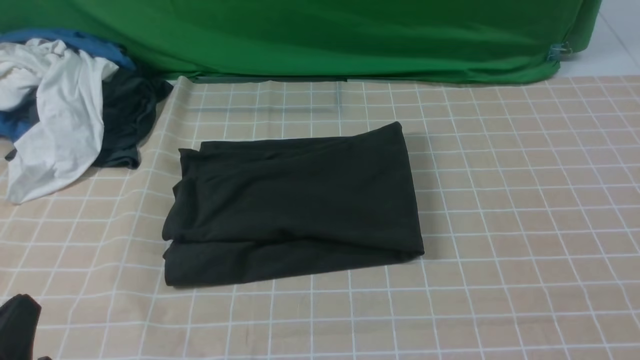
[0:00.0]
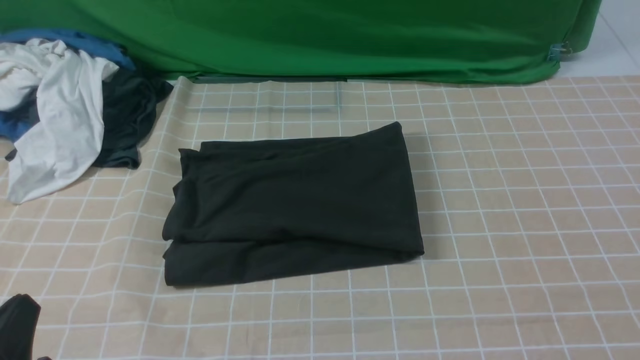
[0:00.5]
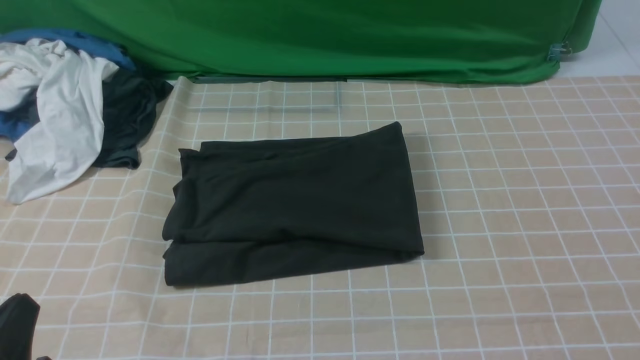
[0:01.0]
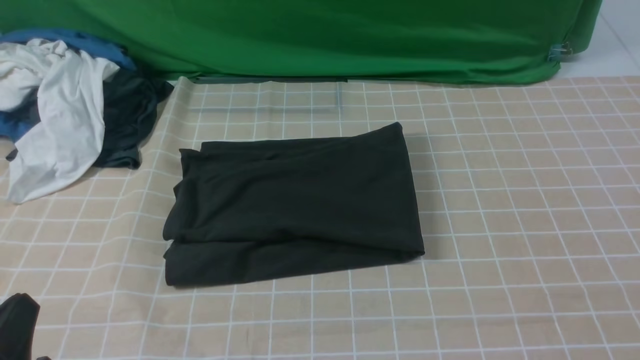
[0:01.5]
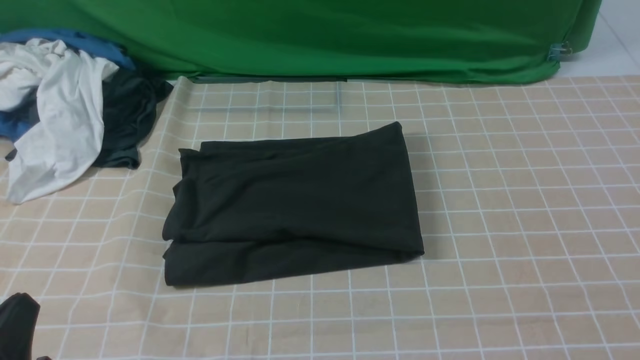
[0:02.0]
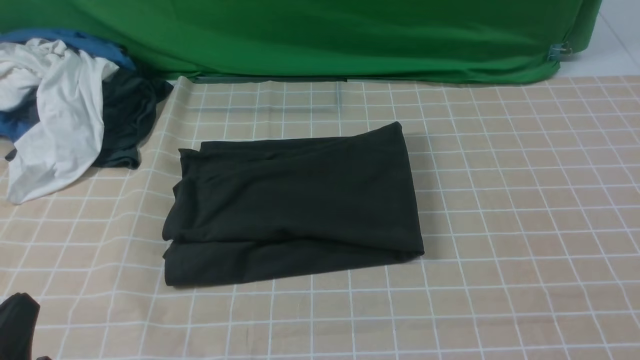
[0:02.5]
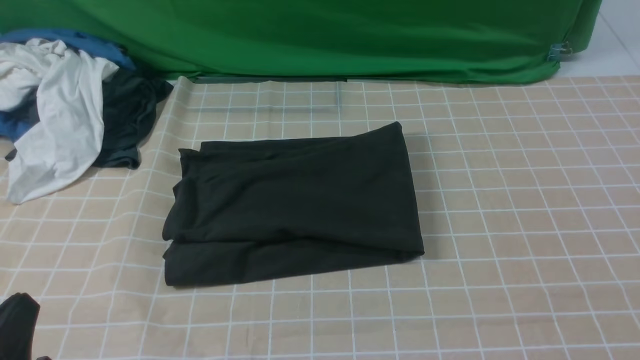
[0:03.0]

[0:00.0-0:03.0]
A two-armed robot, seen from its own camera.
0:01.5 to 0:03.0: The two grippers keep their place.

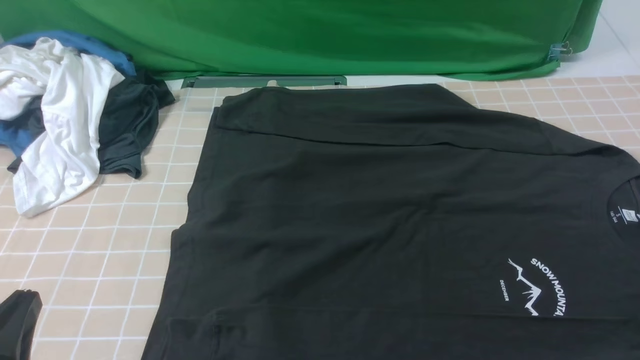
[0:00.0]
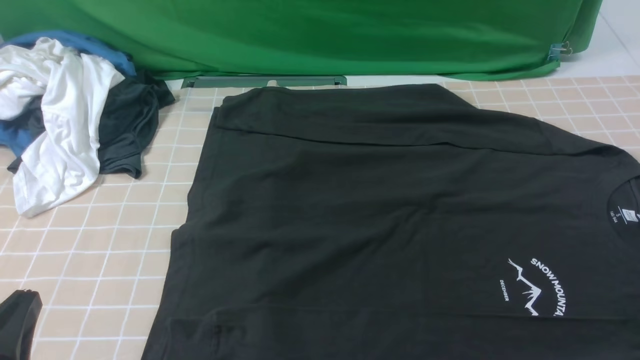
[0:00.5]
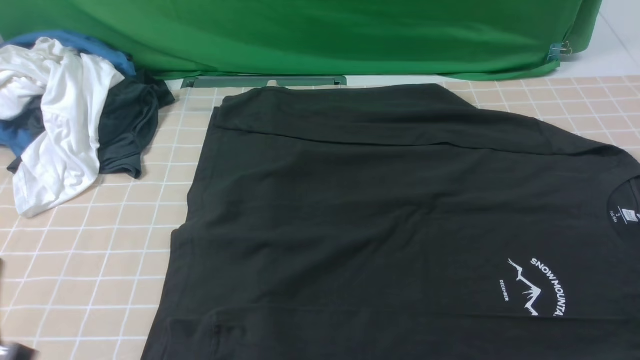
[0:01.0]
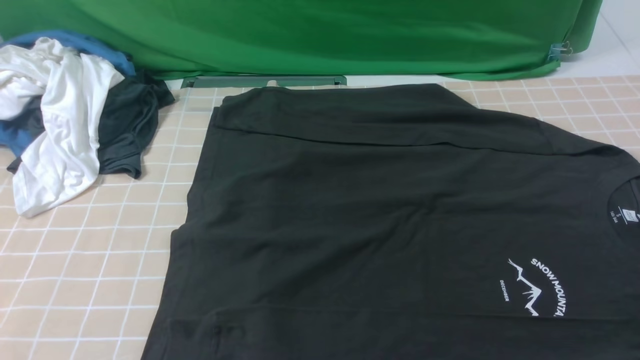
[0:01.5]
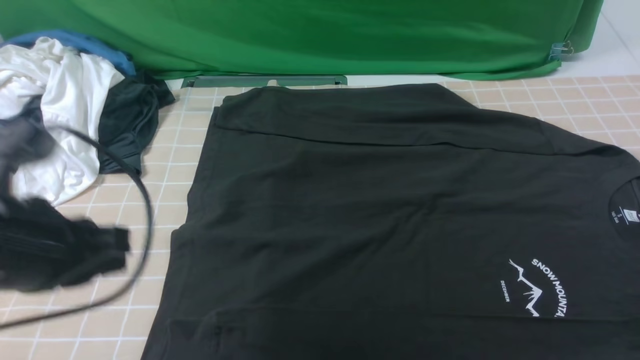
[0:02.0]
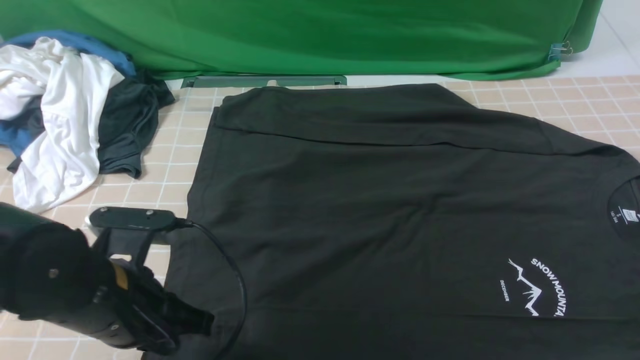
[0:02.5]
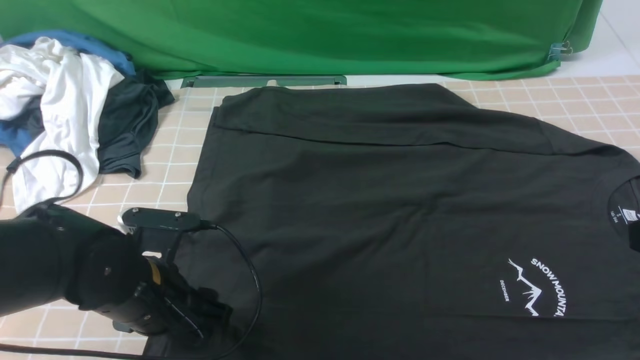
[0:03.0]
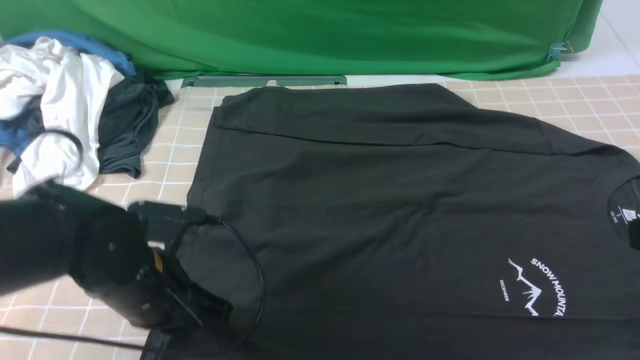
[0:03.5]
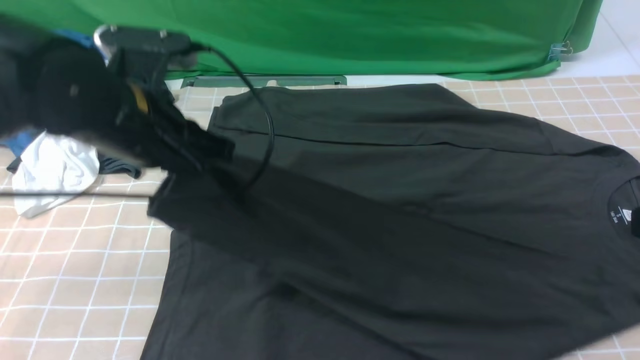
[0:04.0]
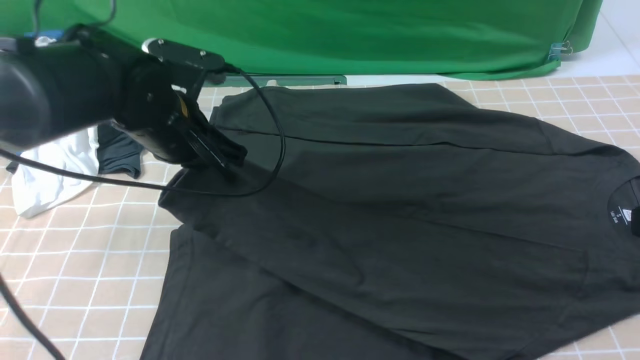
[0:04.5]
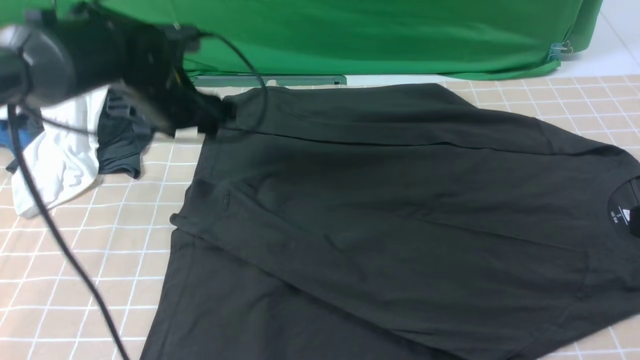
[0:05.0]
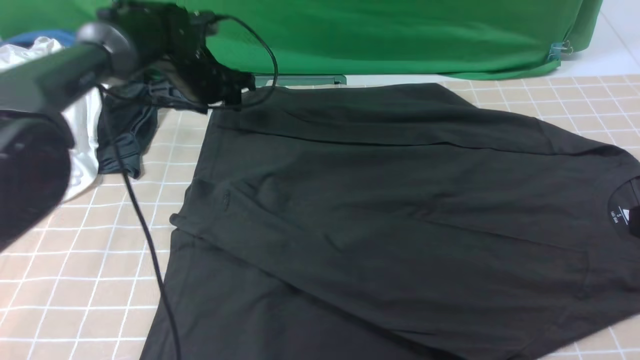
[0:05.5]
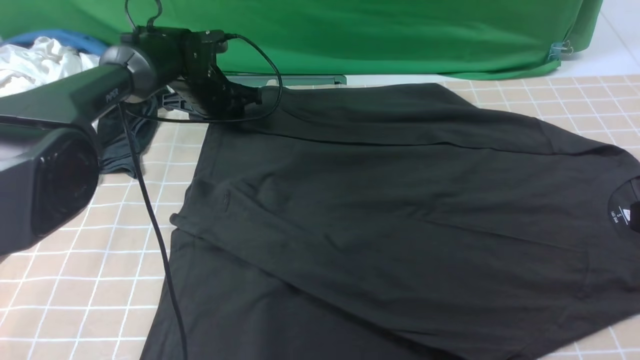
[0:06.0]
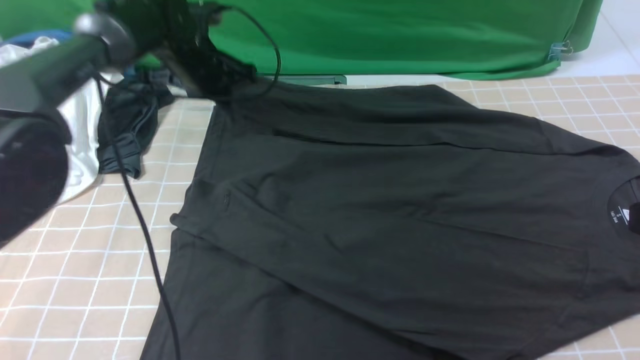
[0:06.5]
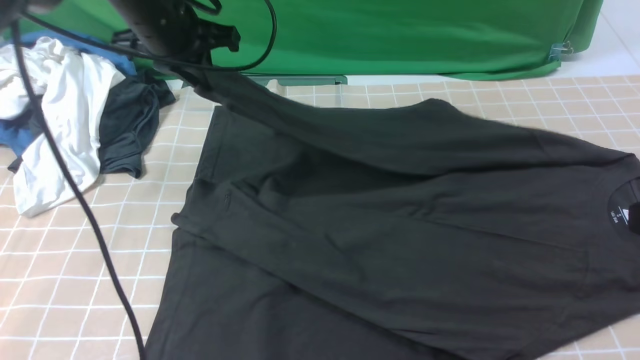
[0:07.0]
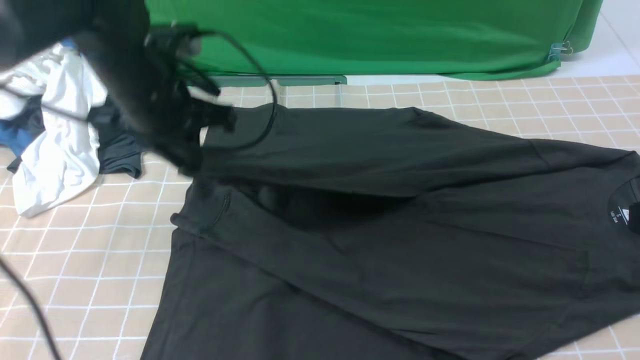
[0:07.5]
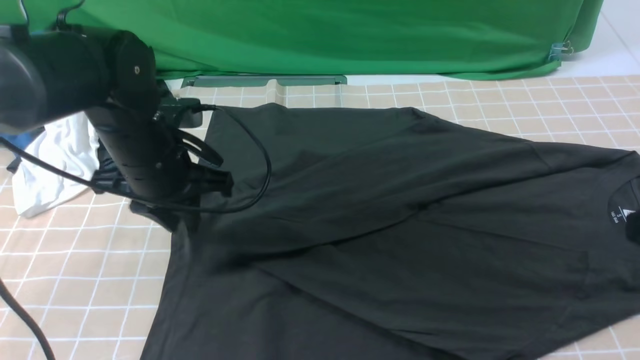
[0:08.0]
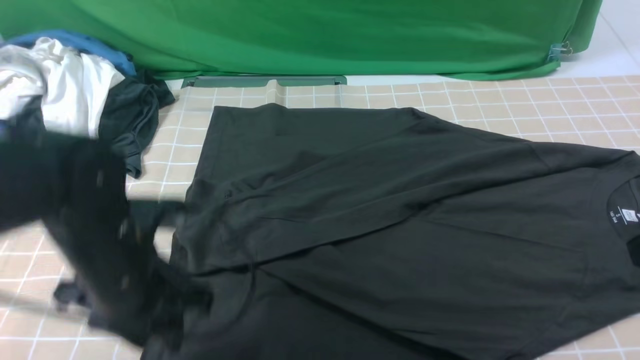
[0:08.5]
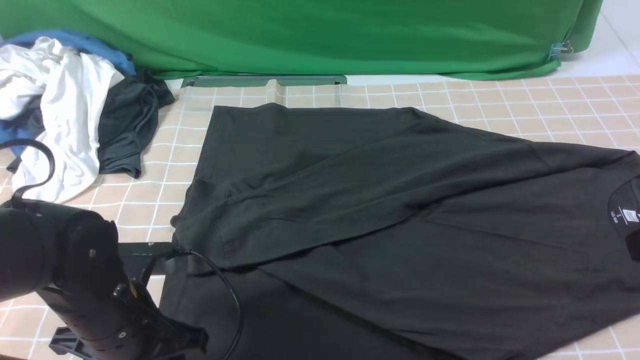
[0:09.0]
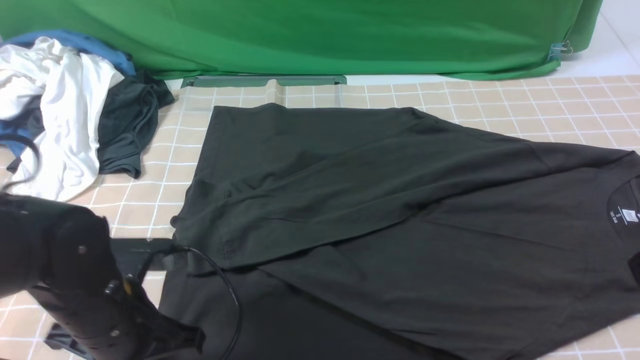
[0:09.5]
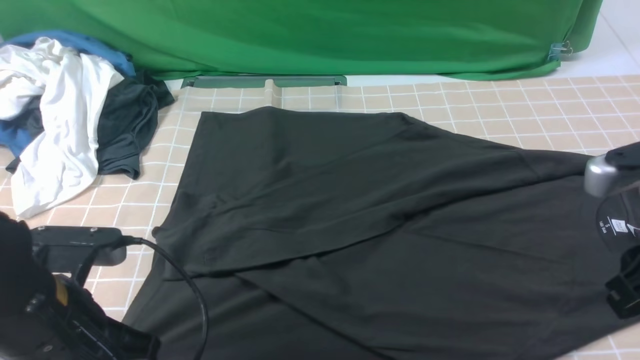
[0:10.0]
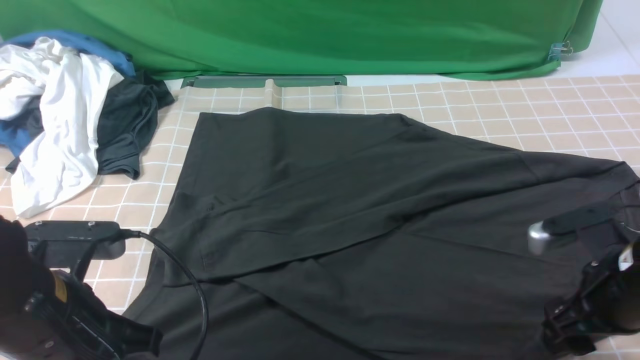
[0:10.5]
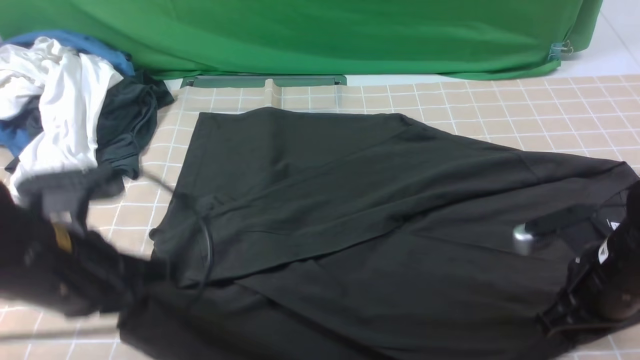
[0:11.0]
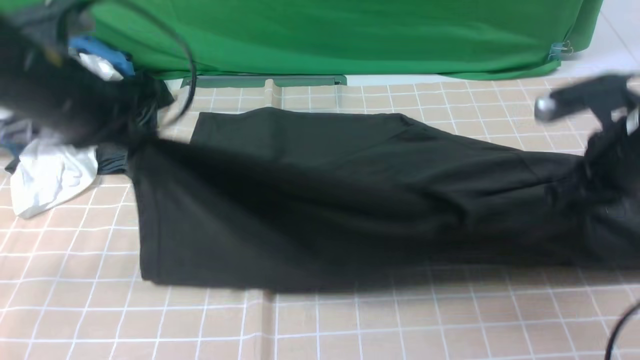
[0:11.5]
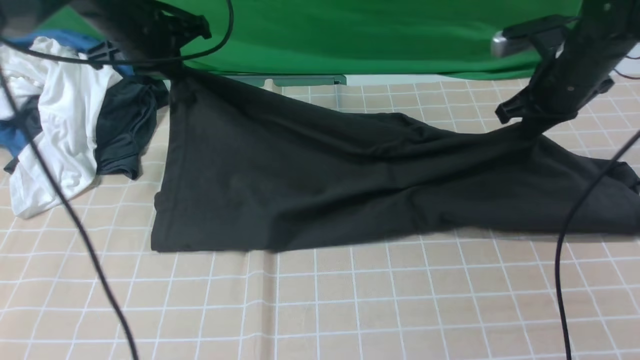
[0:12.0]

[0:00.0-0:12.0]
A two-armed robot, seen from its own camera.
Step, 0:00.0 to 0:03.0: use the left arm to clamp the cuff closest to it.
Step, 0:03.5 to 0:04.5: use the left arm to drag and place the cuff at the centered position on the left edge of the fabric.
Step, 0:05.0 to 0:06.0: use the left arm to clamp the cuff farthest from it.
Step, 0:06.5 to 0:08.0: use the left arm to drag and drop the cuff onto the cuff closest to the left arm.
Step, 0:08.5 to 0:10.5: use both arms simultaneously to clamp the lower edge of the clothing fabric.
0:00.0 to 0:02.0: The left gripper moves forward and upward, approximately 15 cm.
0:02.0 to 0:04.0: The right gripper heads forward and upward, covering approximately 10 cm, while the left gripper heads forward and to the right, covering approximately 15 cm, goes downward and returns, roughly 10 cm each way, and opens, then closes once more.
0:04.0 to 0:06.0: The left gripper moves forward and downward, approximately 25 cm, and opens up.
0:06.0 to 0:08.0: The left gripper moves backward, approximately 20 cm.
0:08.0 to 0:10.0: The left gripper is displaced backward by about 15 cm, and closes. Meanwhile the right gripper ends up about 5 cm from where it was, and opens its fingers.
0:10.0 to 0:12.0: Both grippers move forward, roughly 30 cm. The right gripper closes up.

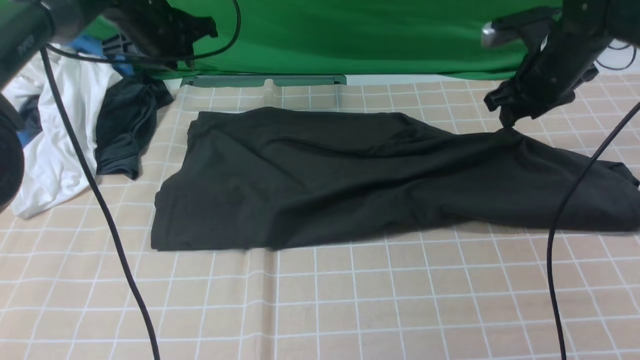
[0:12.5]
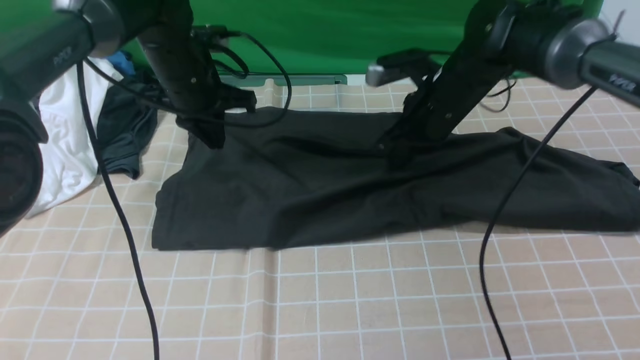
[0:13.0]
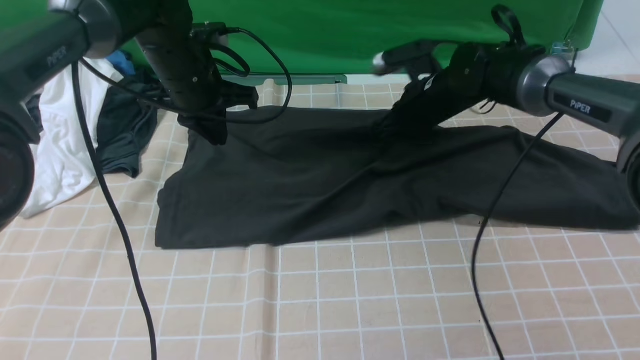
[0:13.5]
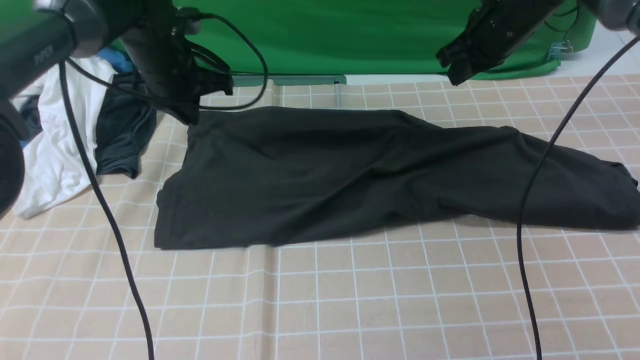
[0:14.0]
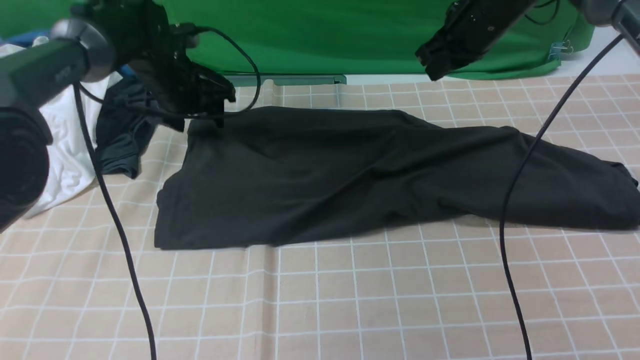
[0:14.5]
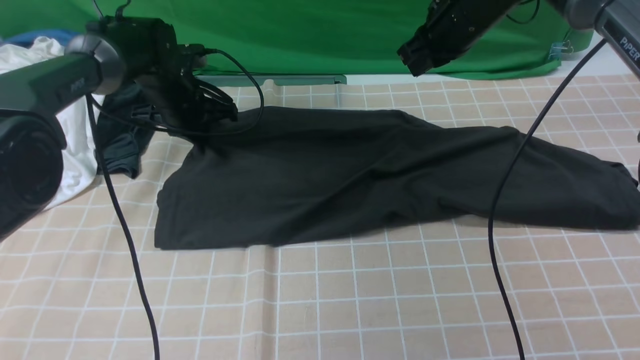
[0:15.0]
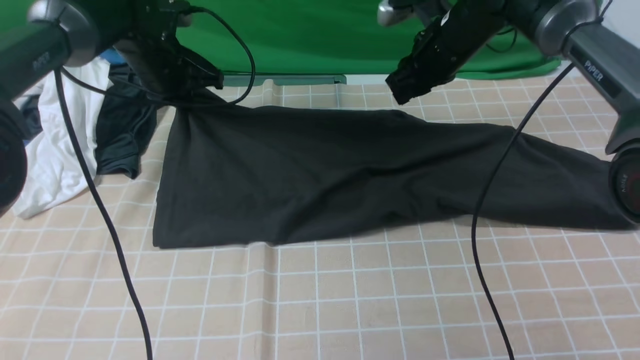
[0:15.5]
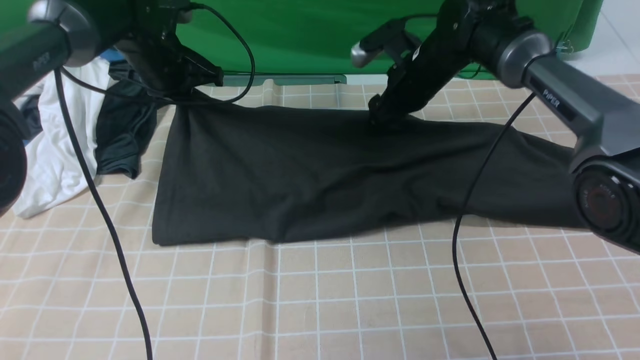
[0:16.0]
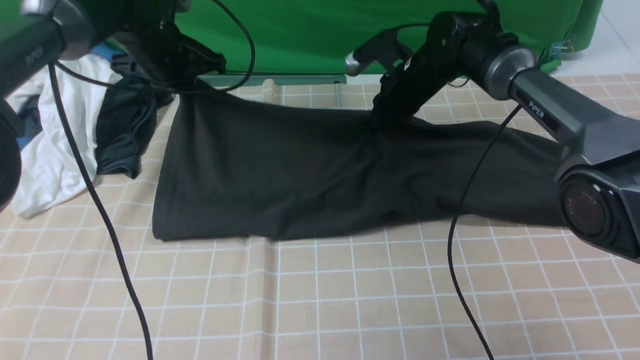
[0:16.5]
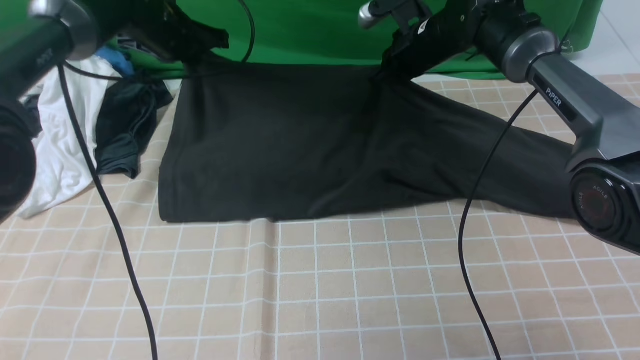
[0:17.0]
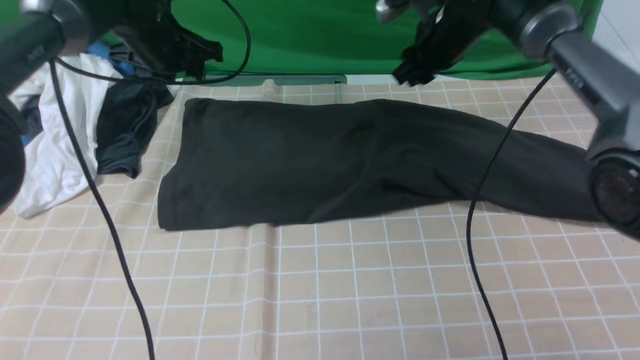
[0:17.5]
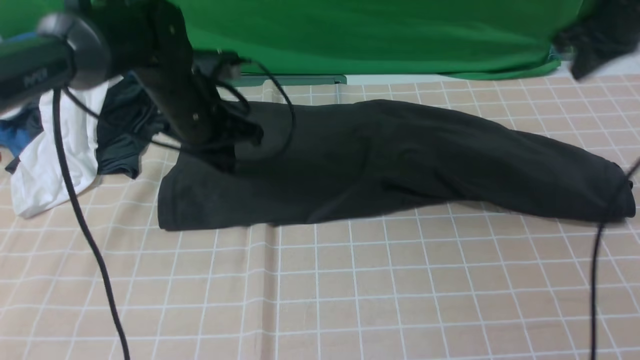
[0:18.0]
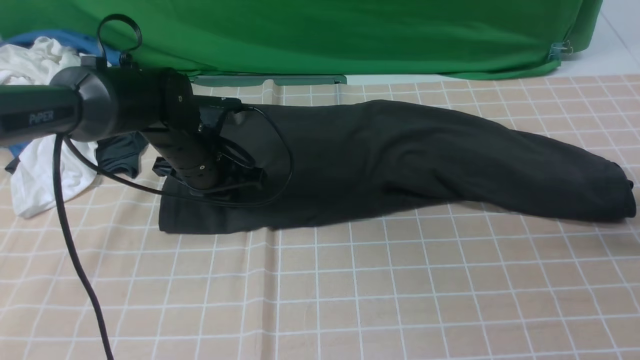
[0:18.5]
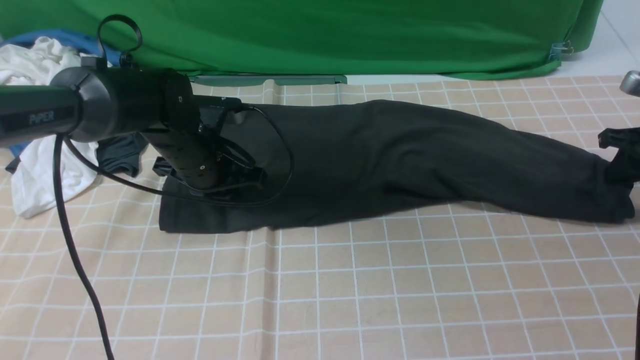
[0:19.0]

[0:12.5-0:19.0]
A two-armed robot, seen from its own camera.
Step, 0:12.5 to 0:17.0: use both arms to drag the lower edge of the fabric forward and fold it over the upper edge.
0:12.5 to 0:14.5: The left gripper goes approximately 10 cm downward, and opens its fingers, while the right gripper heads to the left, covering about 5 cm, and closes its fingers.
0:14.5 to 0:17.0: The left gripper heads upward, covering approximately 5 cm, and closes. The right gripper shifts approximately 5 cm downward, and opens and closes again.
0:17.0 to 0:19.0: The right gripper goes about 30 cm to the right and backward, and opens and closes again; the left gripper shifts roughly 15 cm backward and downward, and opens, then closes once more.
